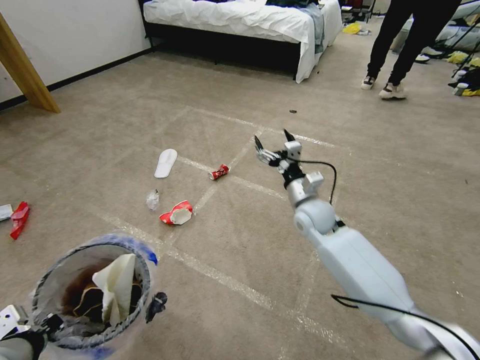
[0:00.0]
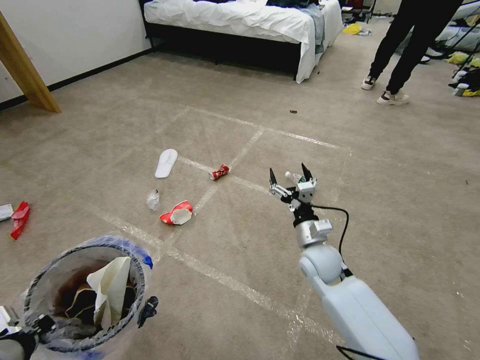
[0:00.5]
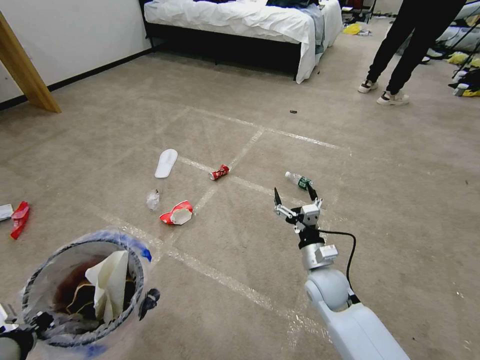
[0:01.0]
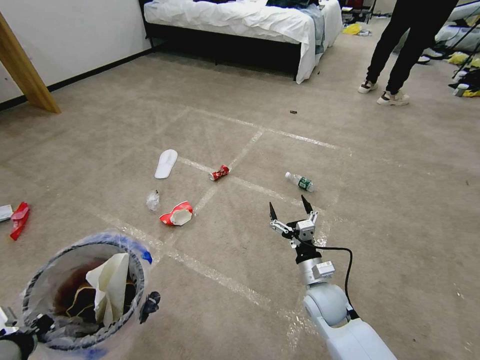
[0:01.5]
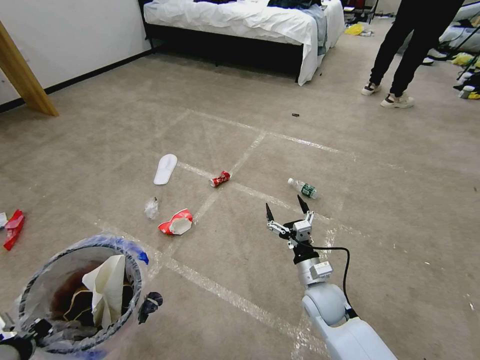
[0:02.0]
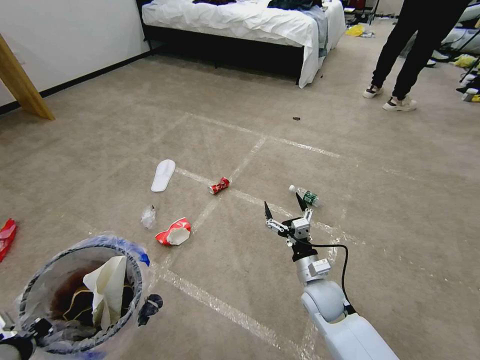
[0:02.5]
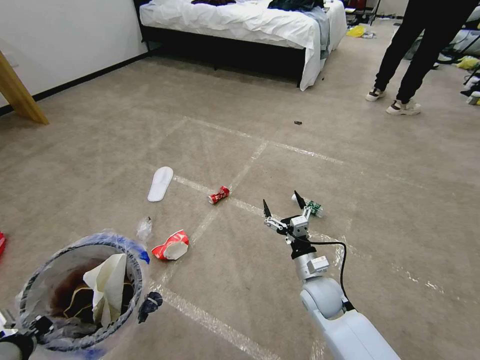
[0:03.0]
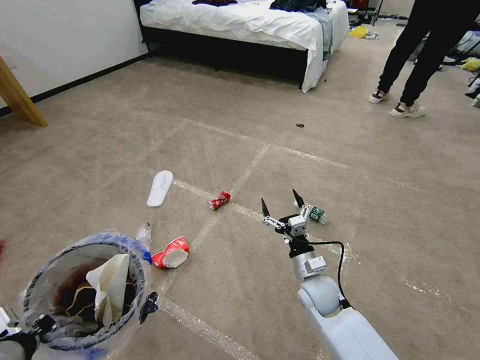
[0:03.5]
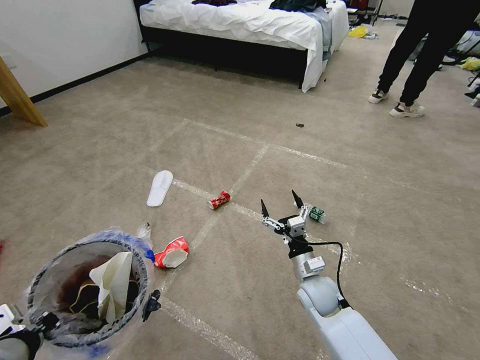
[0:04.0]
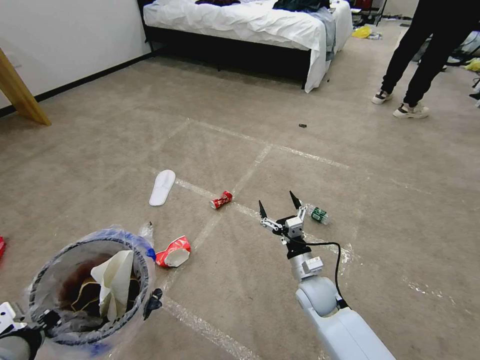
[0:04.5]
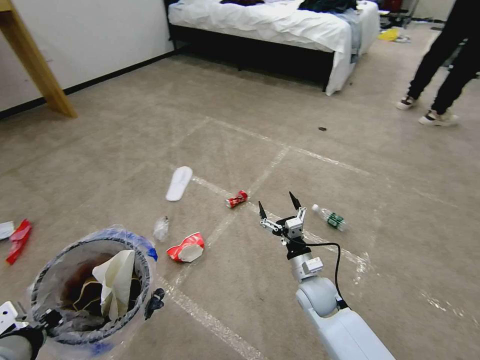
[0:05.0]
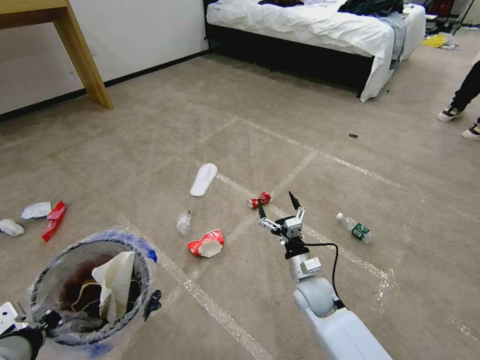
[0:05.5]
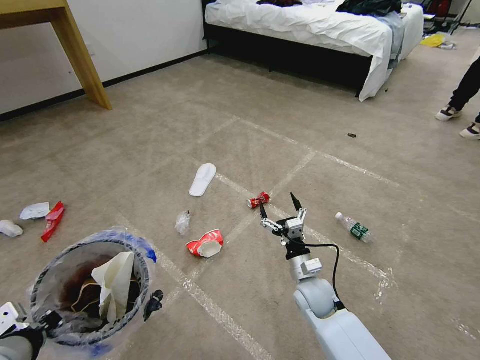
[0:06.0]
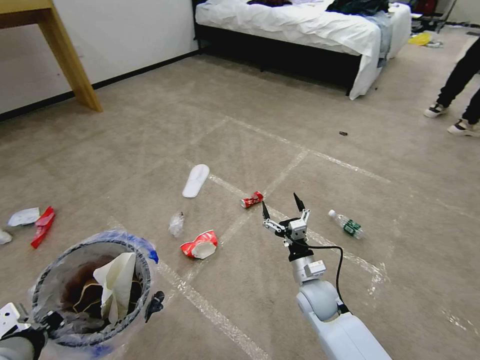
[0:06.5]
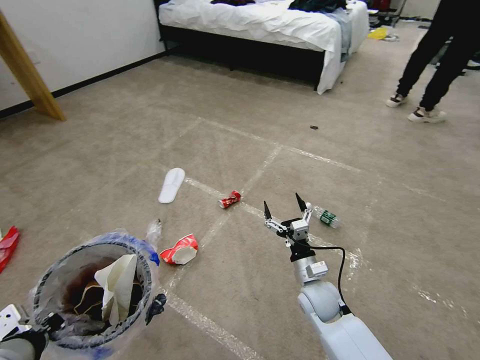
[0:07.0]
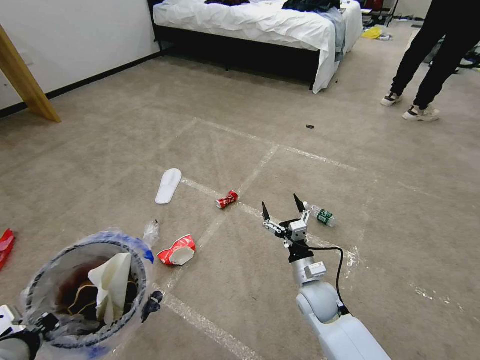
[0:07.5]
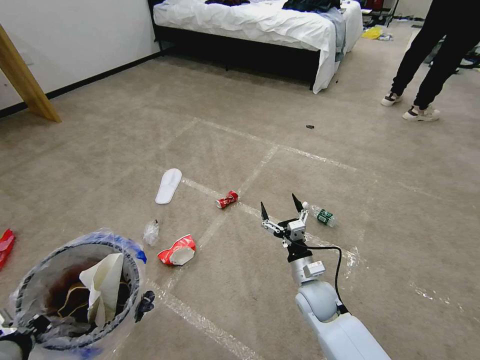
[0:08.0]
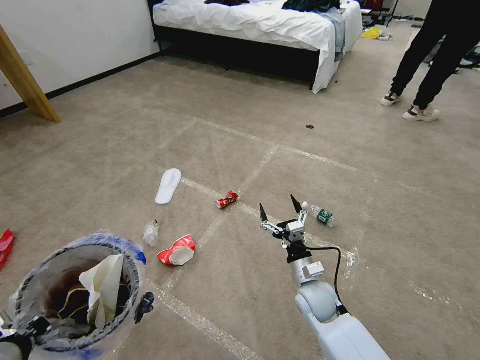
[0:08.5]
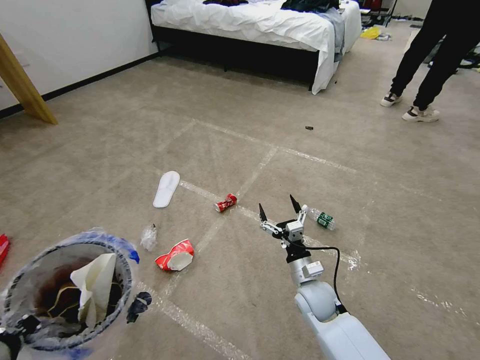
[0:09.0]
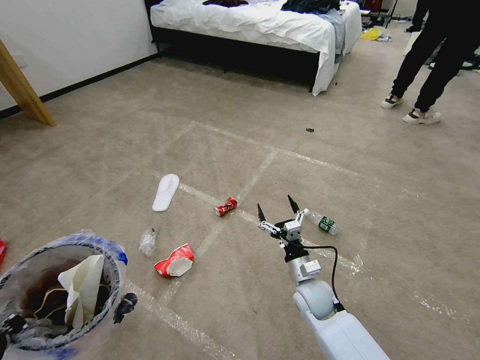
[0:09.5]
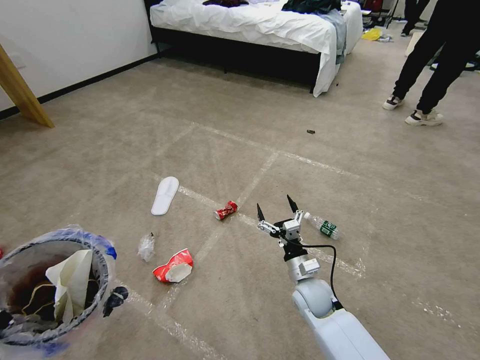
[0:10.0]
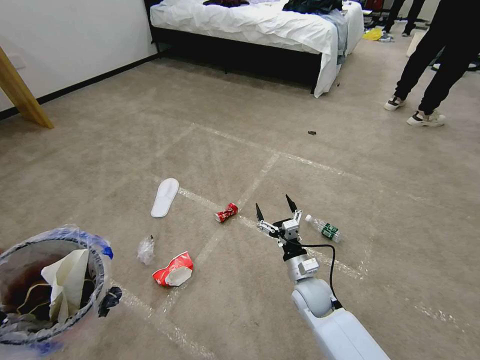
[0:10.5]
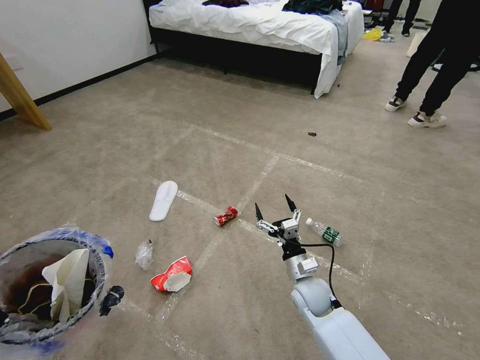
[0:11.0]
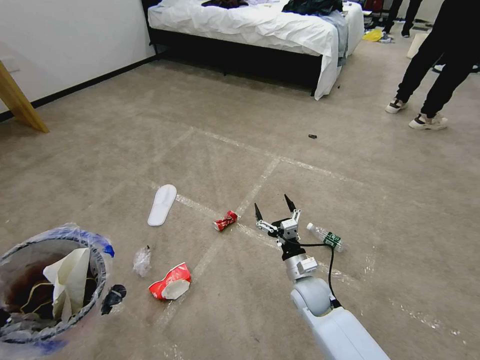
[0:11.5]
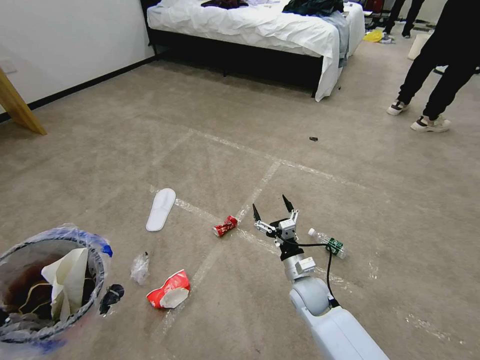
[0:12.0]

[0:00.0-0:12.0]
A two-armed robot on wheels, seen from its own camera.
Task of the whole recording: Pick up the trash bin and place the garbage on the floor into it.
0:00.0 to 0:02.0: The right gripper goes roughly 20 cm backward and downward.
0:08.0 to 0:10.0: The left gripper heads to the left, covering some 5 cm.
0:10.0 to 0:12.0: Both grippers stay about where they are.

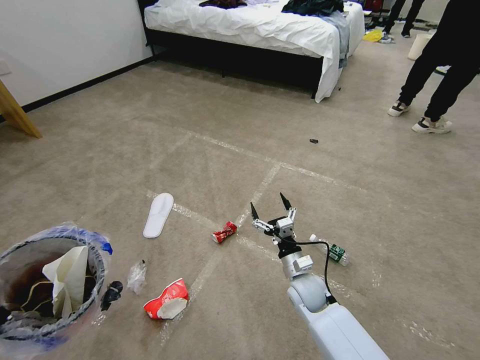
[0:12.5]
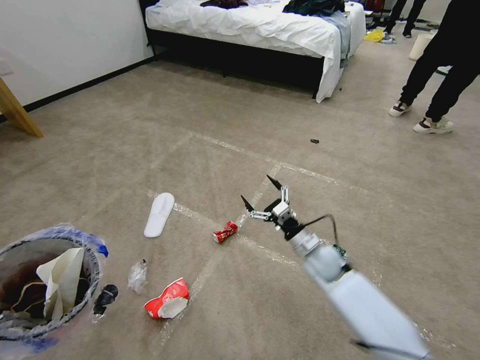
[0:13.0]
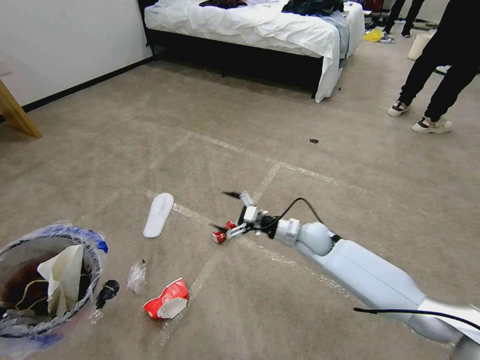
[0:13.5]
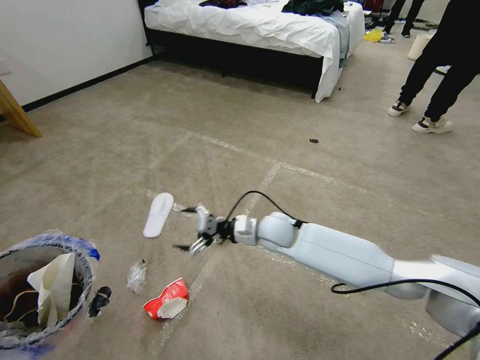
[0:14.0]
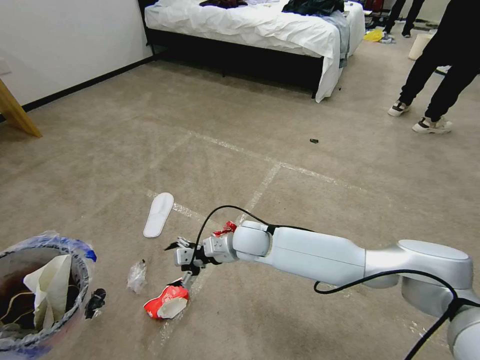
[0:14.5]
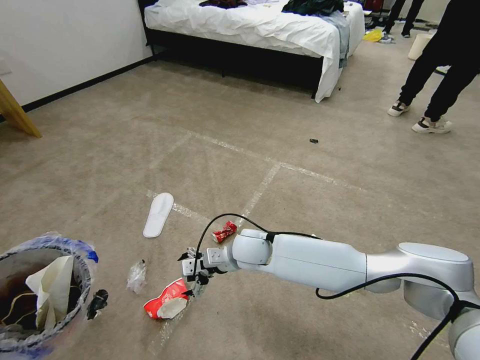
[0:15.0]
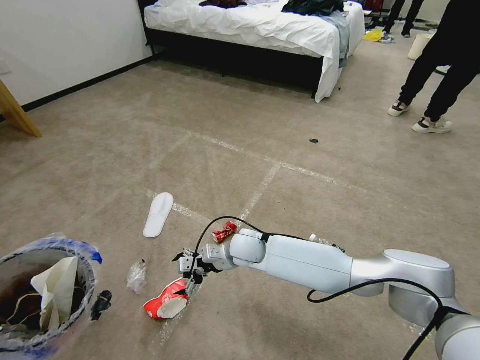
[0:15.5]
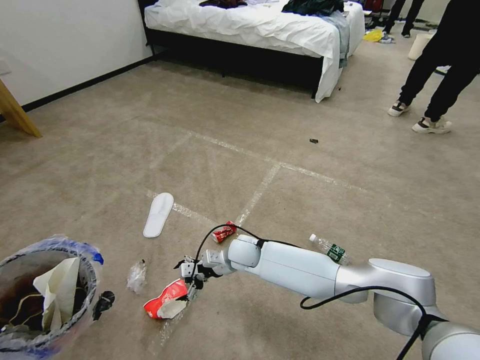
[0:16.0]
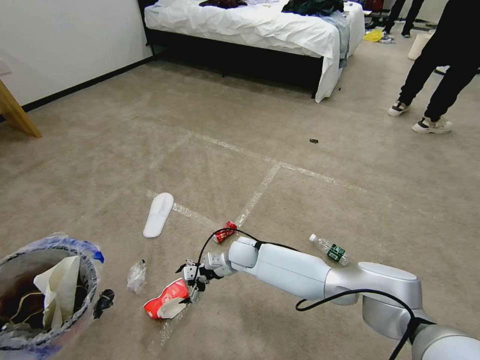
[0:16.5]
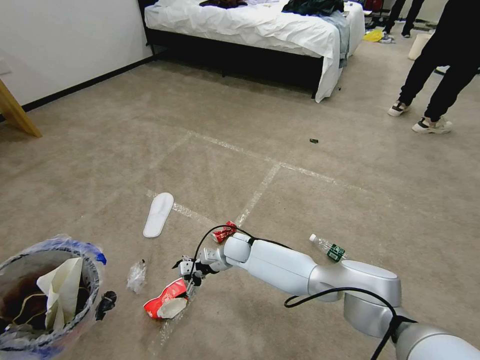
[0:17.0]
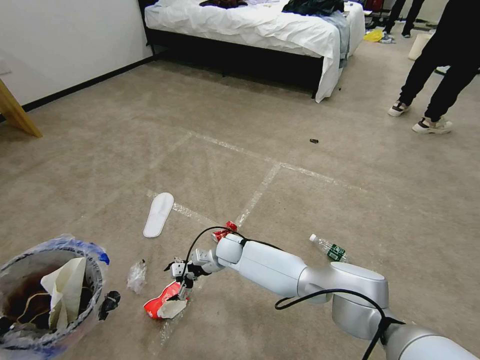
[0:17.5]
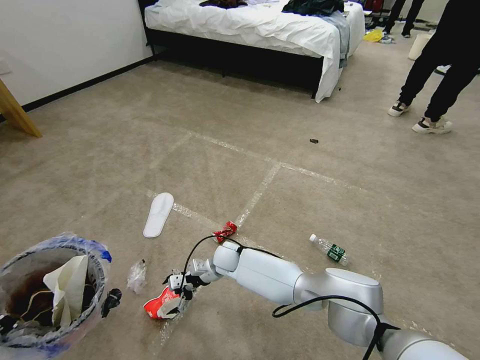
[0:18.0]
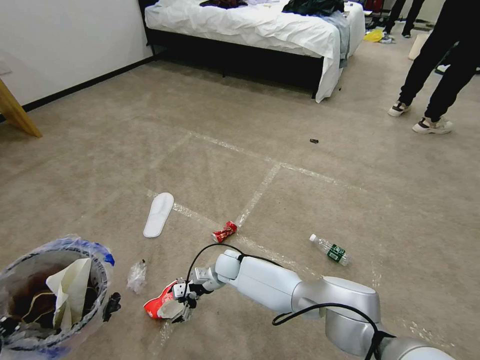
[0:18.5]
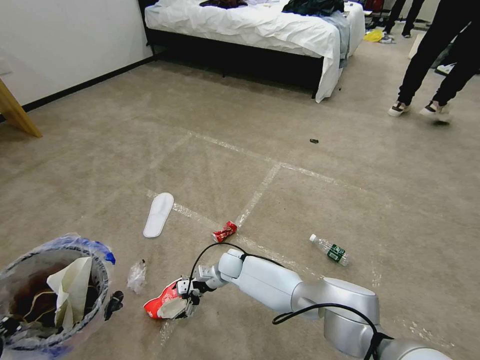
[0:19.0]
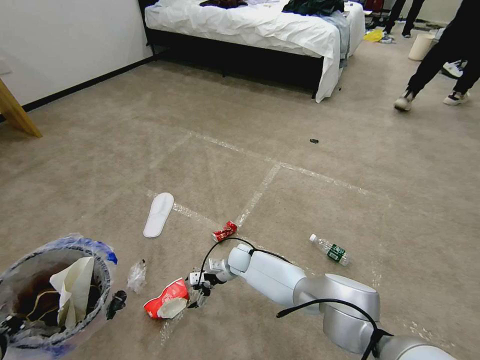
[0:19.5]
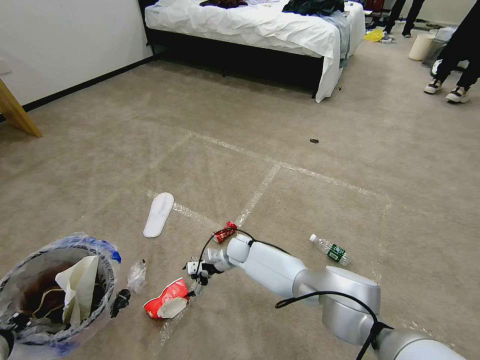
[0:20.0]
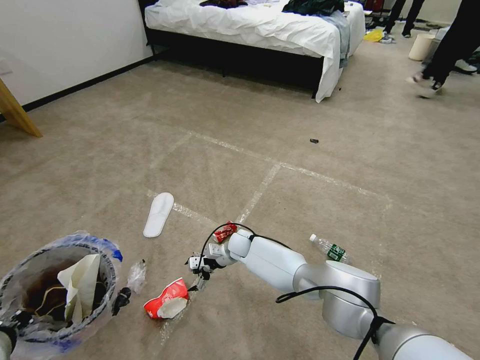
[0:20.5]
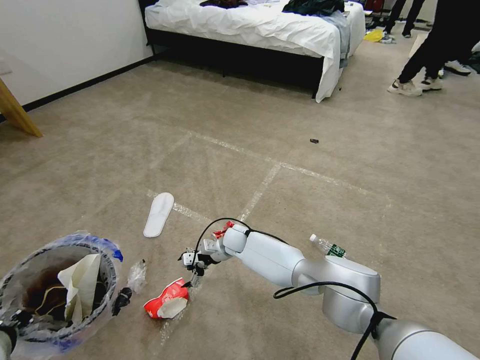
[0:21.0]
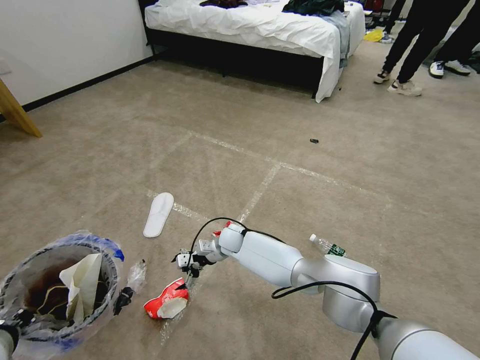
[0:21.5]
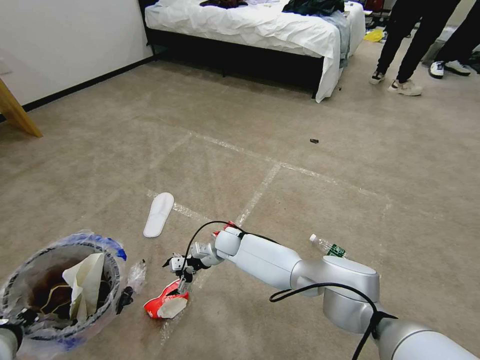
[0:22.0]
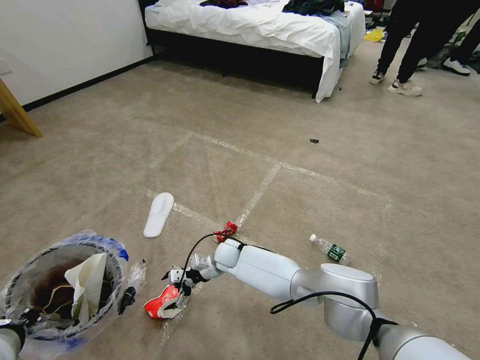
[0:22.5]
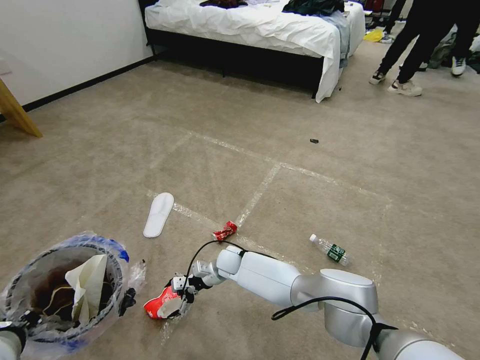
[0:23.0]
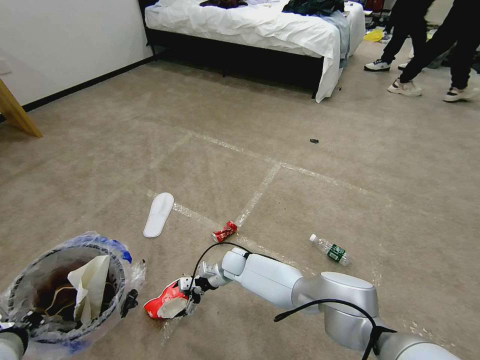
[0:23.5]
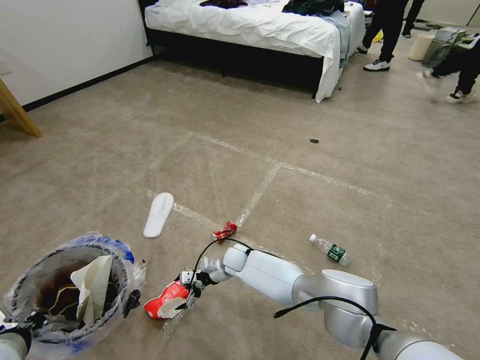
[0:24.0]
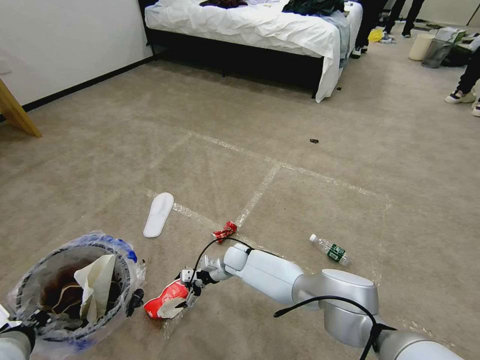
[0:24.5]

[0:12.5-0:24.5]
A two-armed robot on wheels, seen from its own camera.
Task of the whole recording: Pick up the trash bin and place the garbage on the floor into it.
0:12.5 to 0:14.5: The right gripper goes some 20 cm to the left, upward and forward.
0:14.5 to 0:16.5: The right gripper heads downward, covering approximately 10 cm.
0:16.5 to 0:18.5: The right gripper goes about 5 cm downward.
0:18.5 to 0:20.5: The right gripper moves forward, roughly 5 cm.
0:20.5 to 0:22.5: The right gripper shifts by some 5 cm.
0:22.5 to 0:24.5: The grippers stay close to where they were, moving slightly.

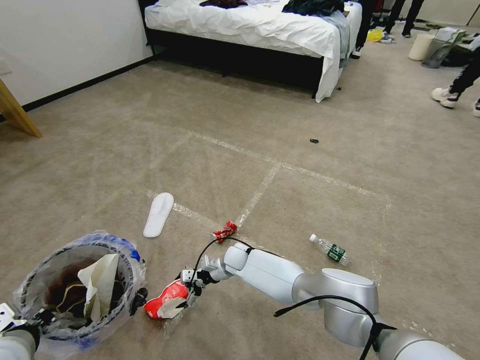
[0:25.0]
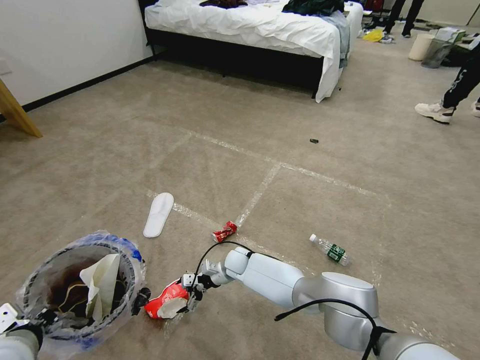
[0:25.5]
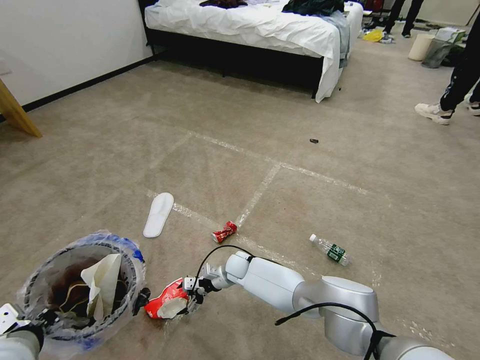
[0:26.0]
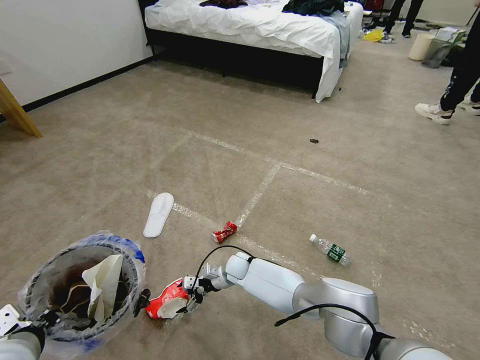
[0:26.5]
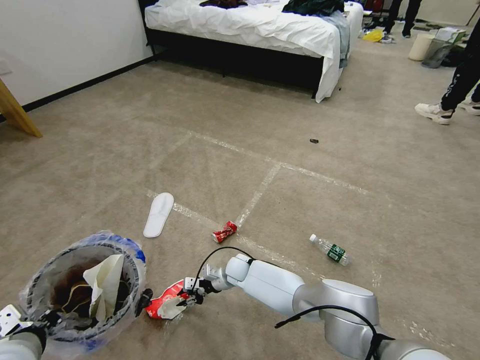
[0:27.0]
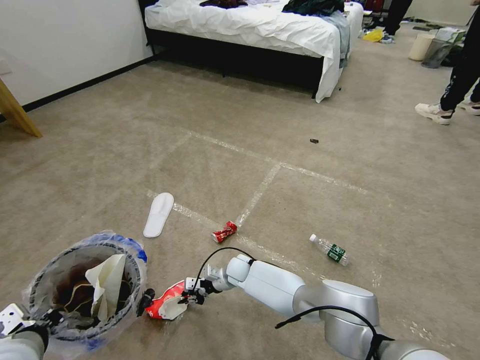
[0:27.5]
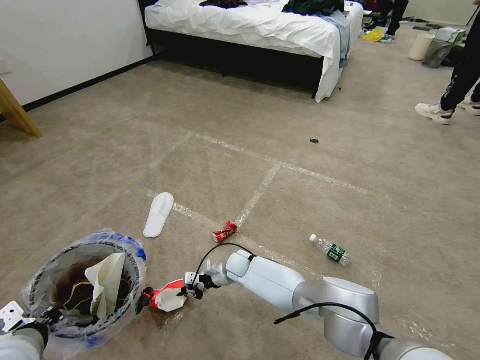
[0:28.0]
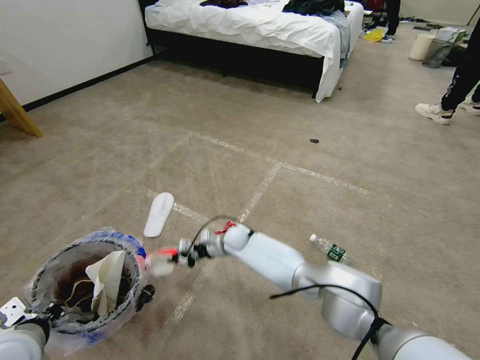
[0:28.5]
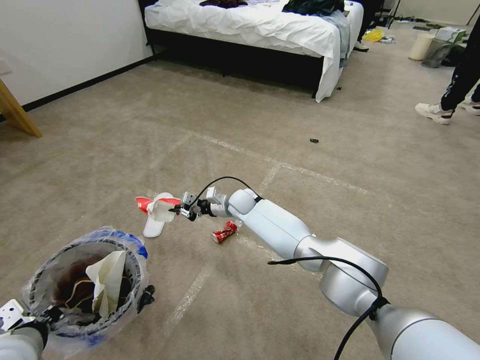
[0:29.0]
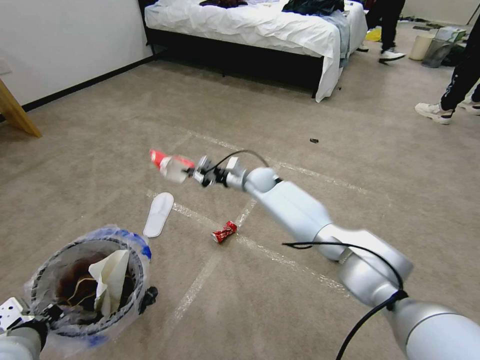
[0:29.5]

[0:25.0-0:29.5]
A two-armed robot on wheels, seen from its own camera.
Task of the whole recording: Pick up the trash bin and place the garbage on the floor into it.
0:25.0 to 0:27.0: The right gripper closes.
0:27.0 to 0:29.5: The right gripper is displaced upward and forward by about 30 cm, and closes up.
